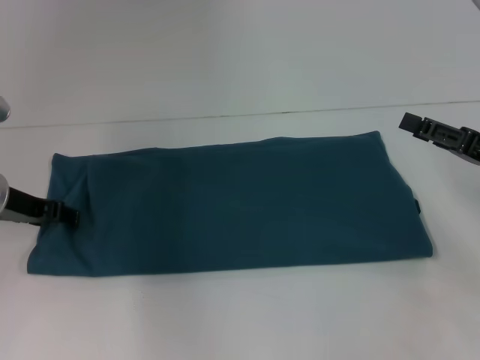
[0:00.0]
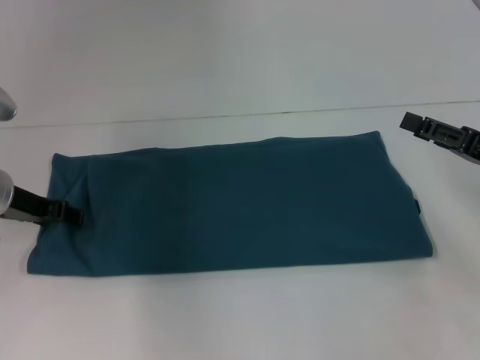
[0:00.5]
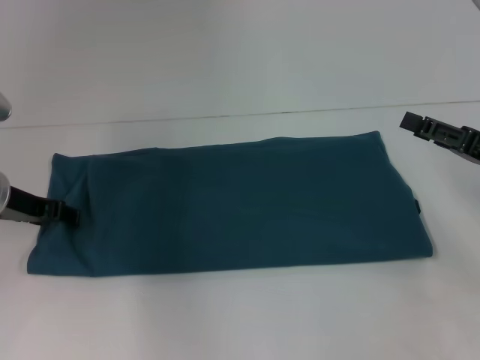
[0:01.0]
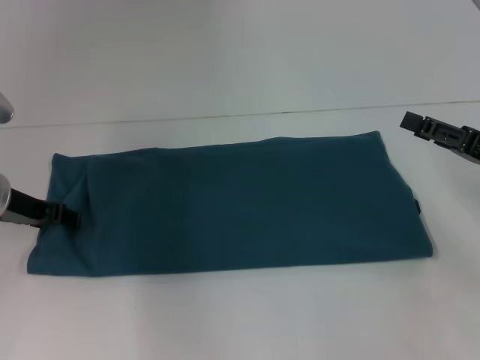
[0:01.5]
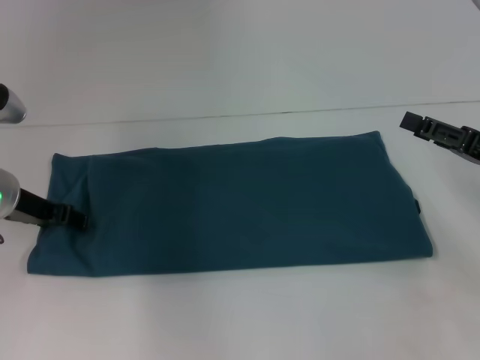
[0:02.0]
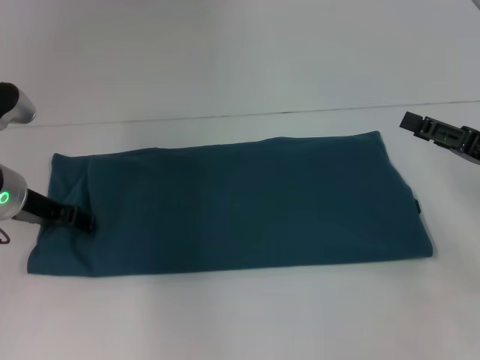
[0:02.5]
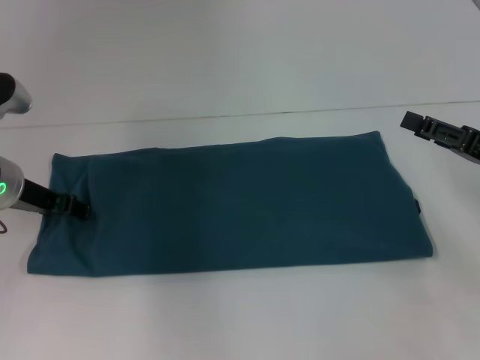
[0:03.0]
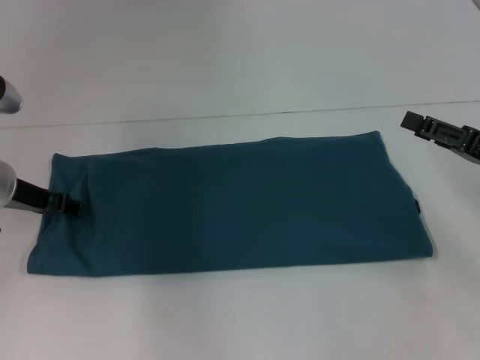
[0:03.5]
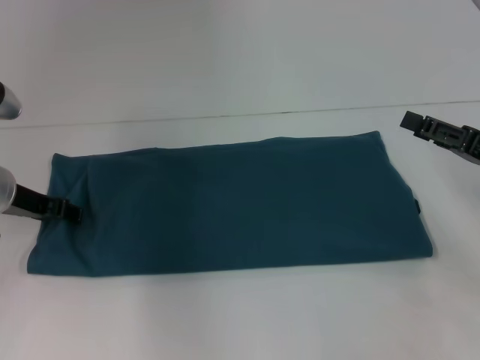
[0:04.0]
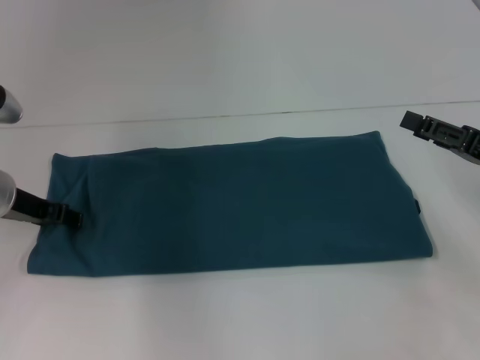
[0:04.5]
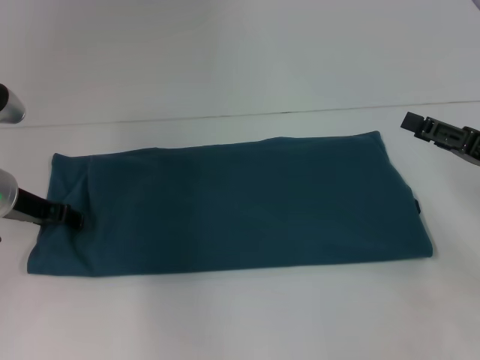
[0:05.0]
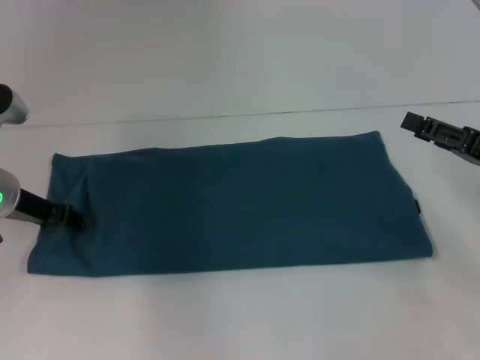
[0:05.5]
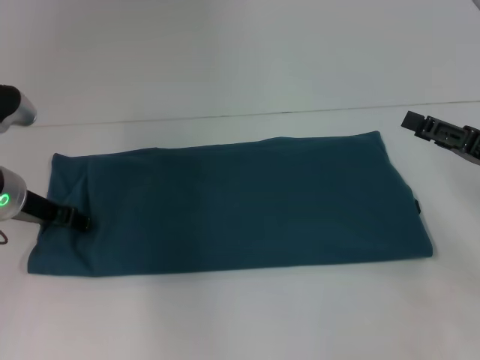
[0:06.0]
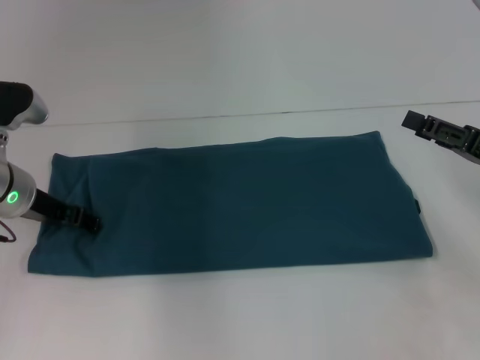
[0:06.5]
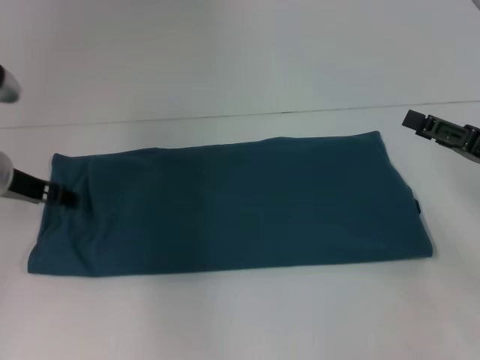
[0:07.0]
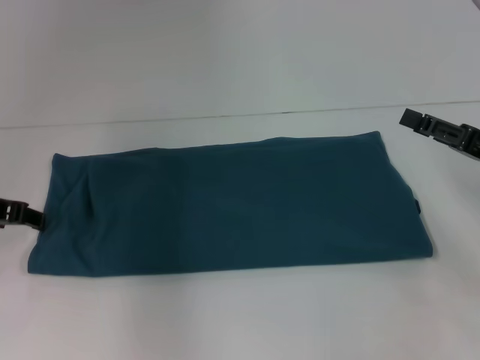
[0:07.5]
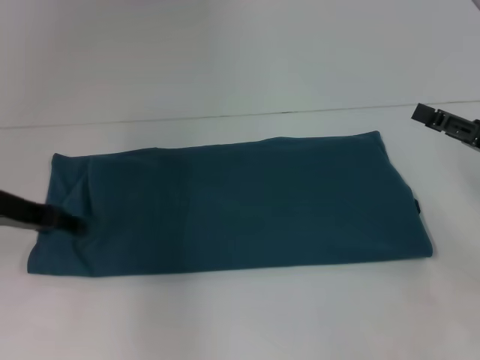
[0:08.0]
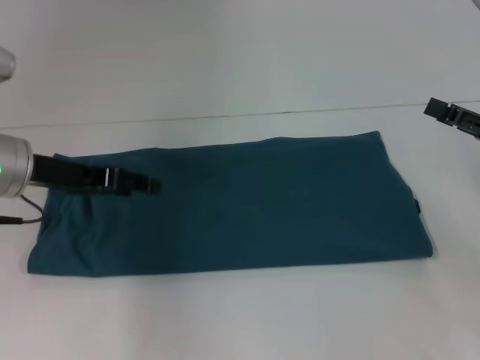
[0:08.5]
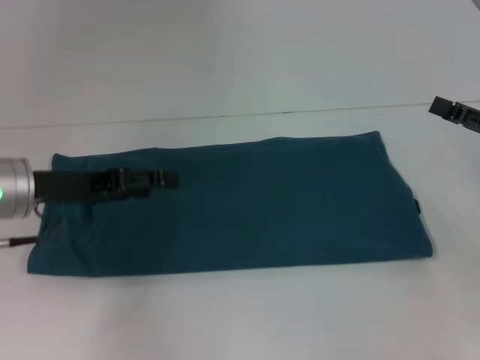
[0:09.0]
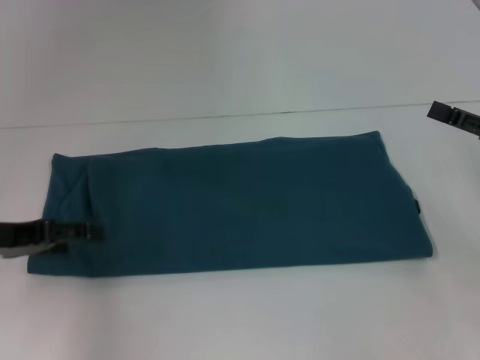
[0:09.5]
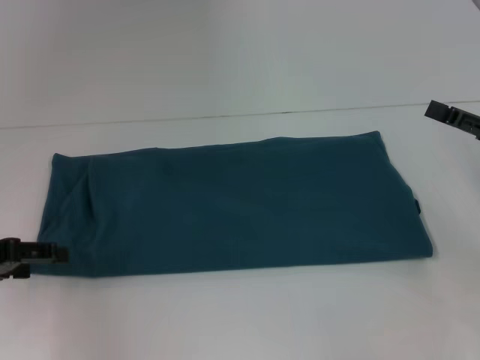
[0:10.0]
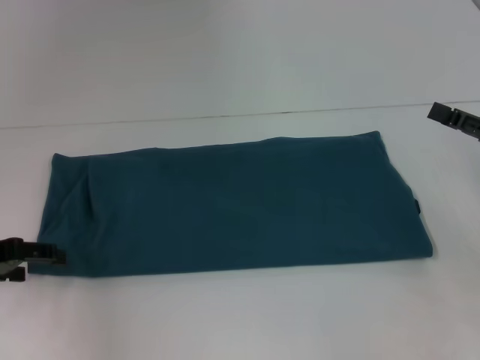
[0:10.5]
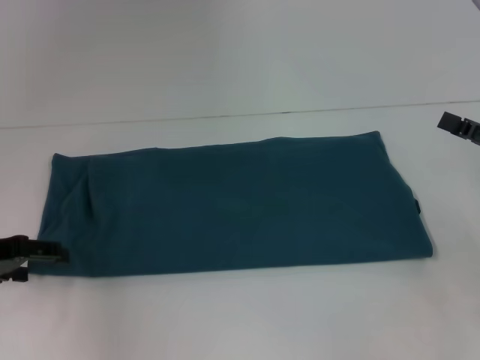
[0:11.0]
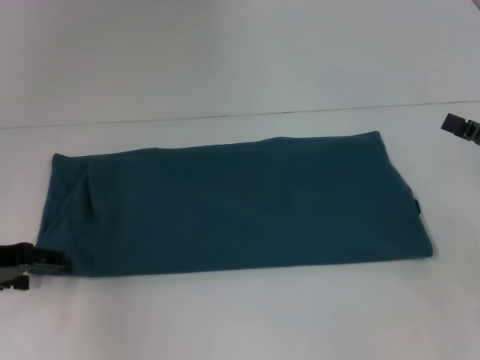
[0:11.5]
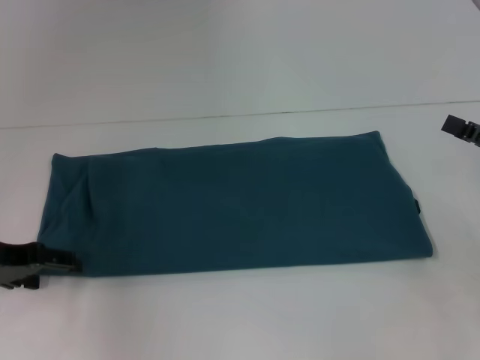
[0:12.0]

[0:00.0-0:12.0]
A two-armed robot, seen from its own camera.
0:00.0 to 0:02.0: Neither gripper changes place.
0:02.0 to 0:06.0: Both grippers stay about where they are.
0:06.0 to 0:08.0: The left gripper moves roughly 5 cm.
0:08.0 to 0:10.0: The left gripper travels to the left and backward by some 10 cm.
0:10.0 to 0:12.0: The grippers move only a little.

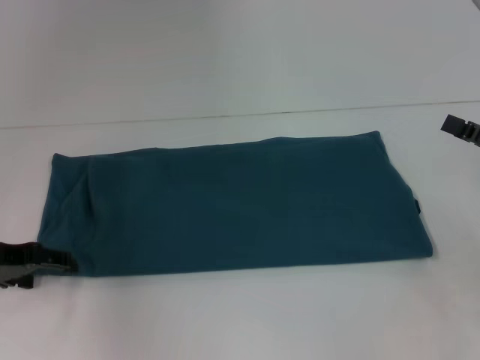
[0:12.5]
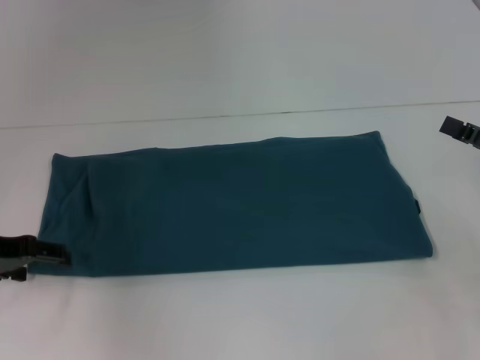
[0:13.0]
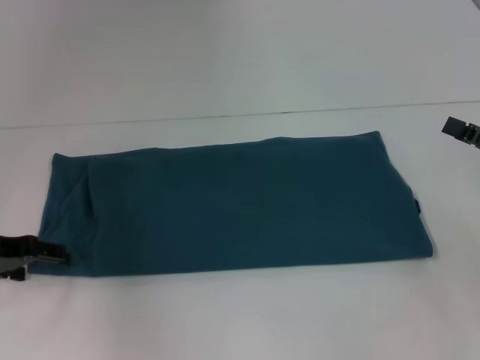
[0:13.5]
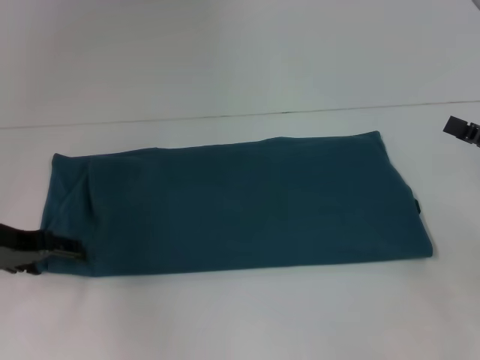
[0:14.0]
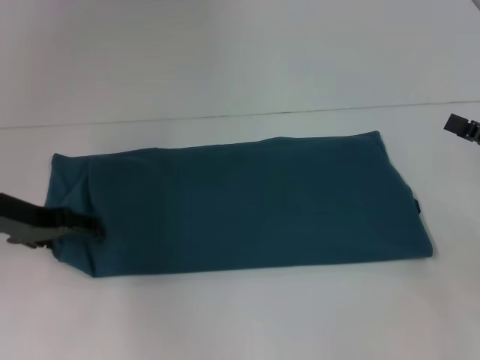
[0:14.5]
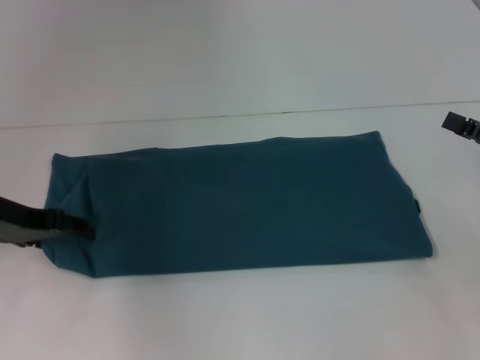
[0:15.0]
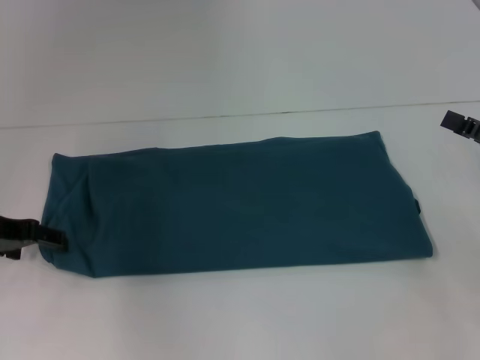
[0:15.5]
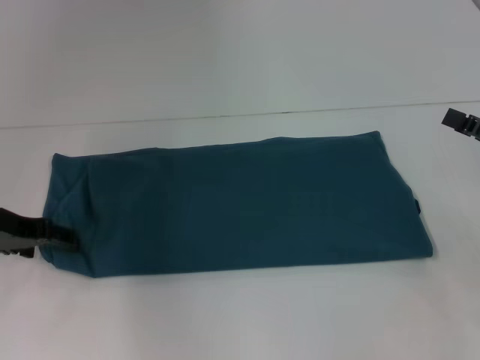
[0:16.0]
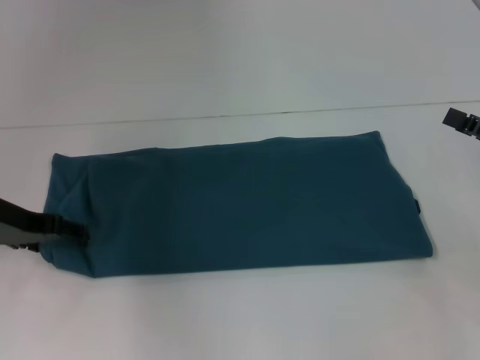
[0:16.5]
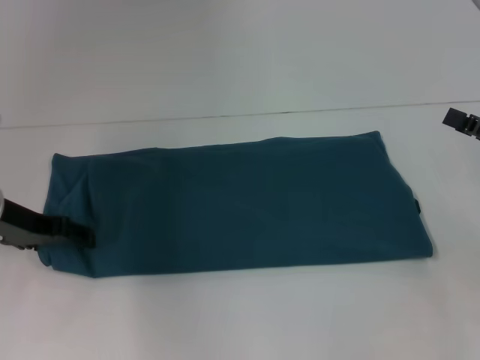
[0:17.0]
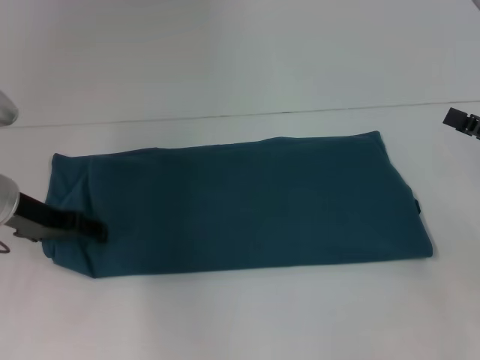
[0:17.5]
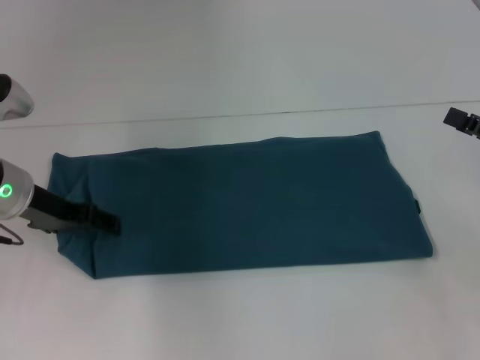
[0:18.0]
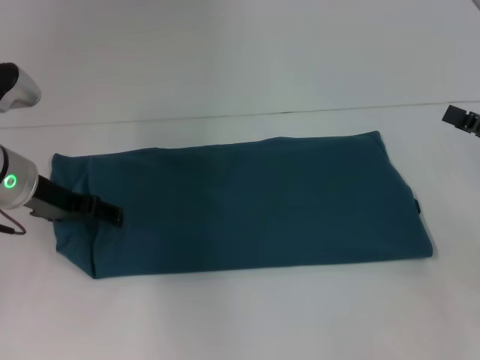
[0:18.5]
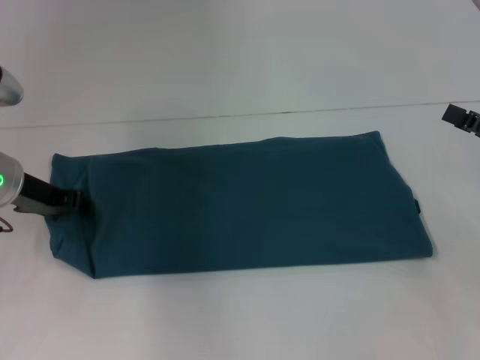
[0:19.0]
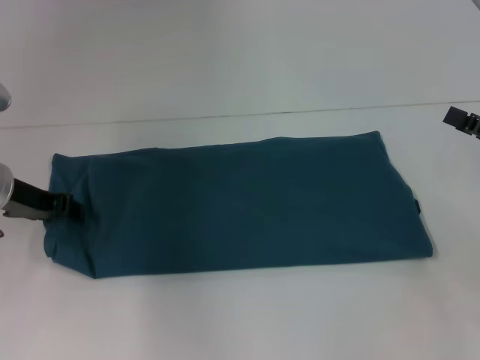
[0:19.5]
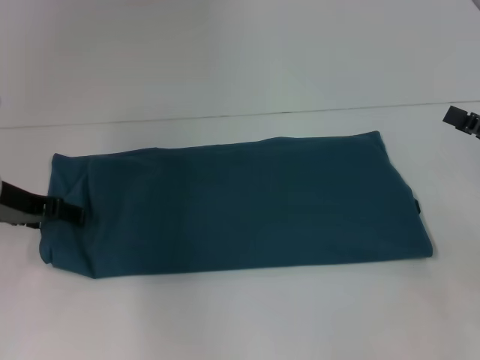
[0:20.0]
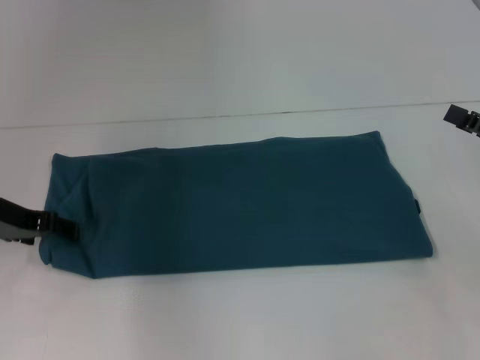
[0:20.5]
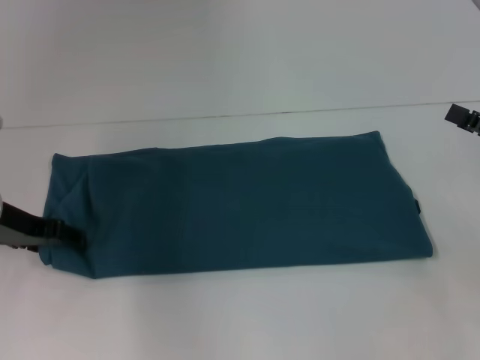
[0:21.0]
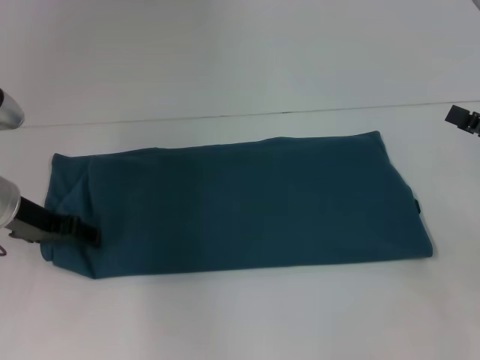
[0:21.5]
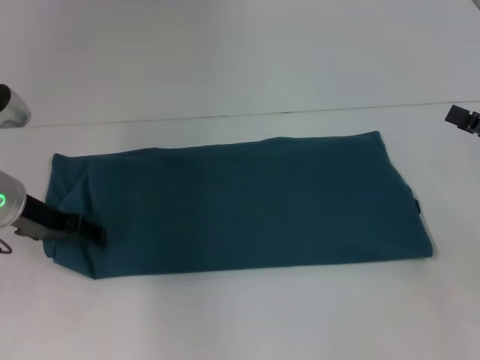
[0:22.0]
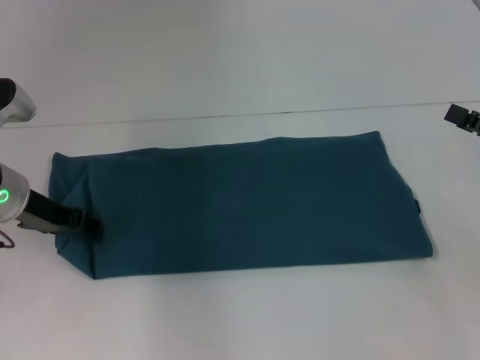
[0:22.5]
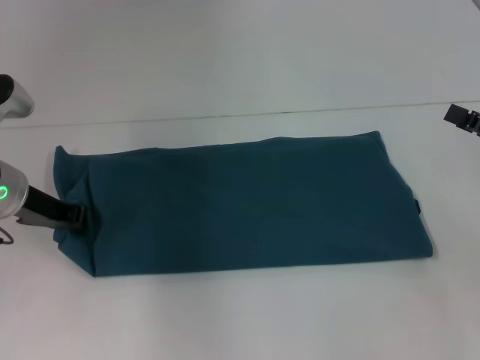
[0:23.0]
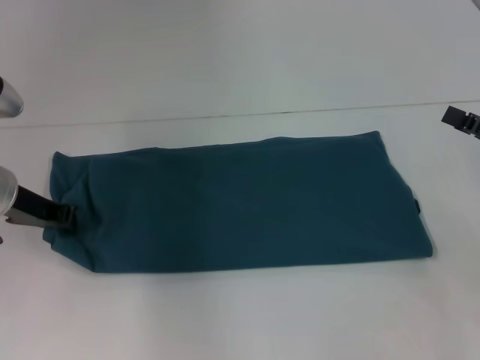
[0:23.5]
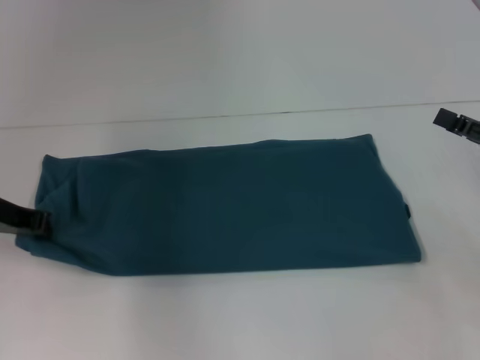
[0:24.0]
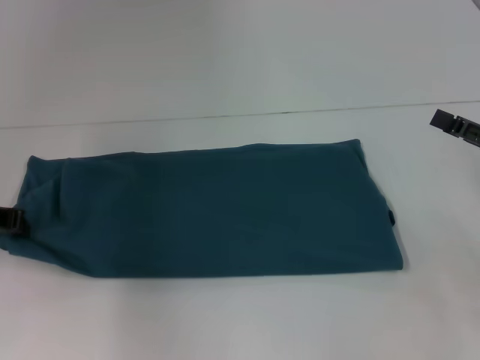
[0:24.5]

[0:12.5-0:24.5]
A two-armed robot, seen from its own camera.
0:12.5 to 0:16.5: The grippers make only small movements.
0:16.5 to 0:18.5: The grippers make only small movements.
0:18.5 to 0:20.5: The left gripper closes, then reopens.
0:20.5 to 0:22.5: The grippers stay close to where they were, moving slightly.
0:22.5 to 0:24.5: The left gripper travels to the left by approximately 5 cm, and closes up.

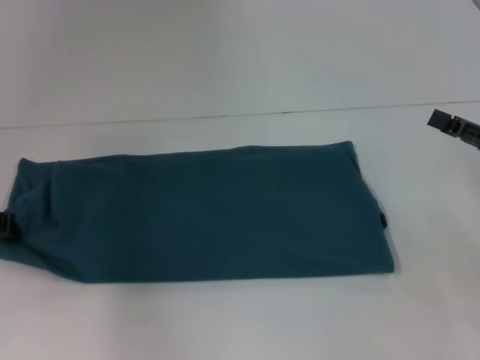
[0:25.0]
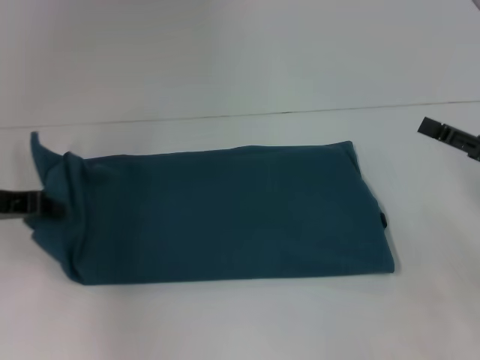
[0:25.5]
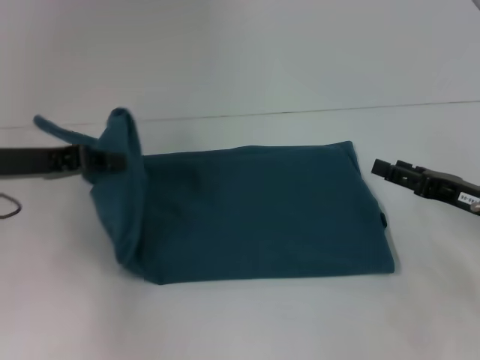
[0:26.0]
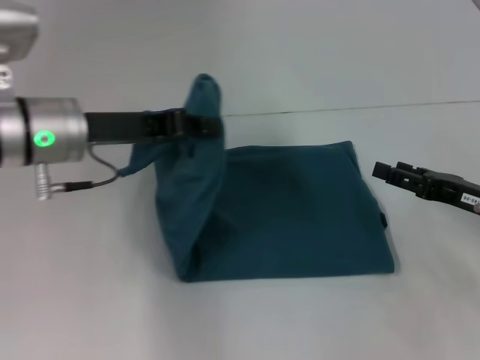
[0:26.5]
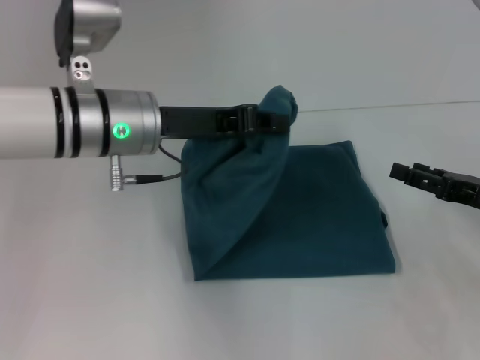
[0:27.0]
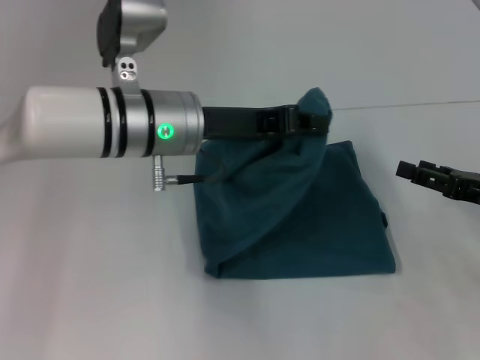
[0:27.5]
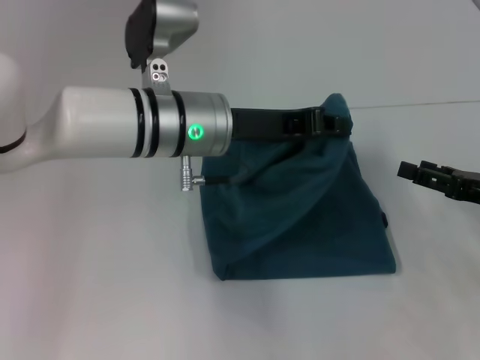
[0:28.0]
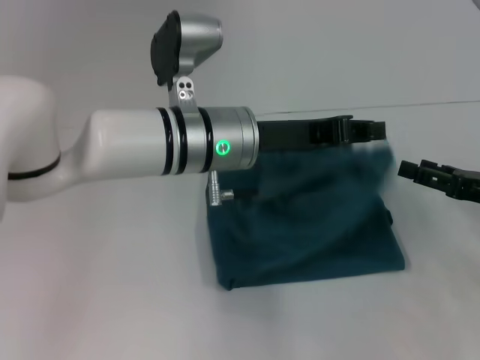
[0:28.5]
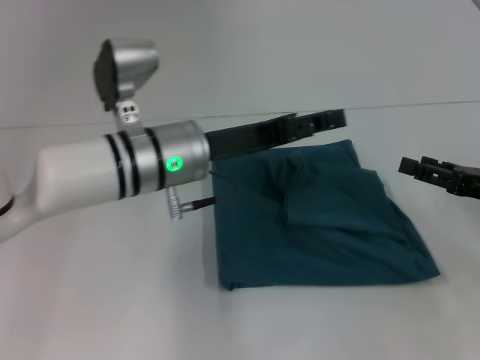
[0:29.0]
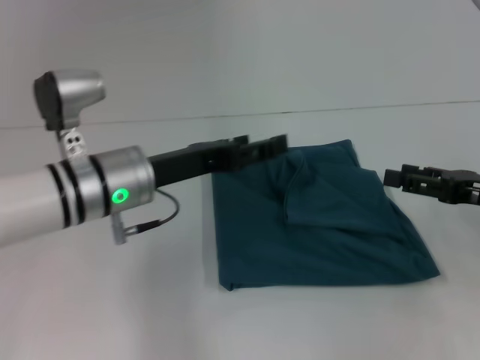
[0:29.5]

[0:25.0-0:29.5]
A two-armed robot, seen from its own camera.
Step, 0:25.0 to 0:28.5: Fold the clothes to the left.
0:25.0 to 0:27.0: The left gripper shifts some 20 cm to the right.
0:27.0 to 0:29.5: The left gripper travels downward by roughly 5 cm, goes to the right and returns, about 10 cm each way, and opens.
